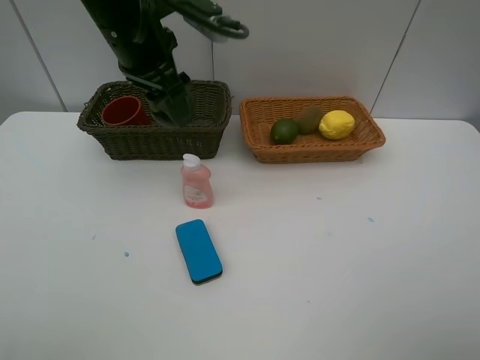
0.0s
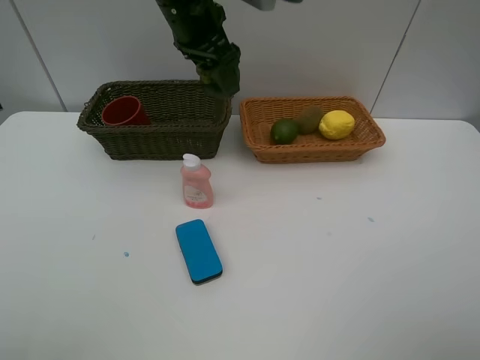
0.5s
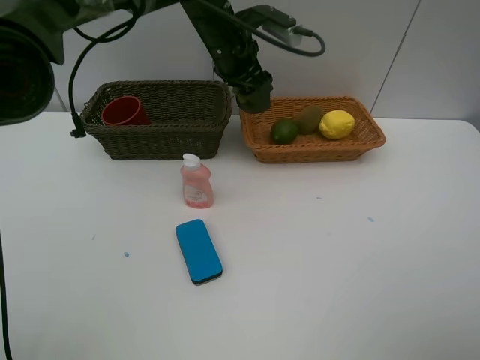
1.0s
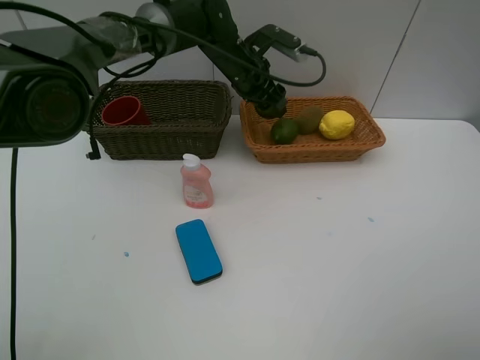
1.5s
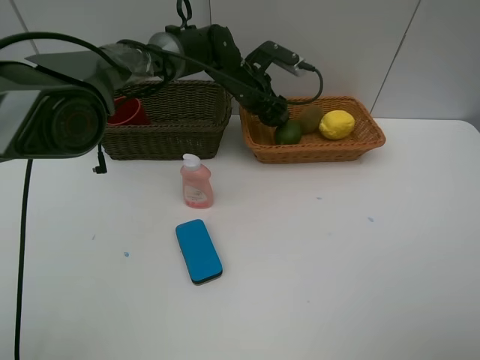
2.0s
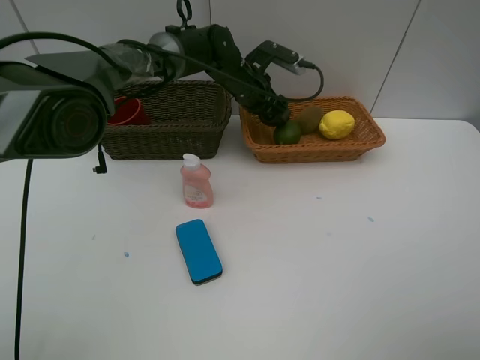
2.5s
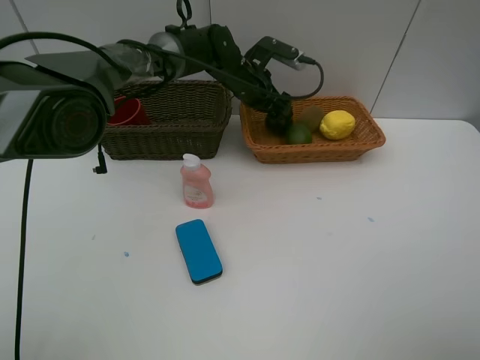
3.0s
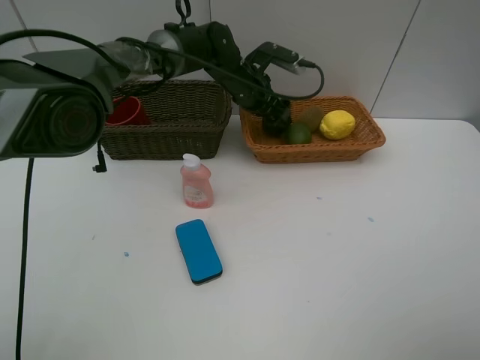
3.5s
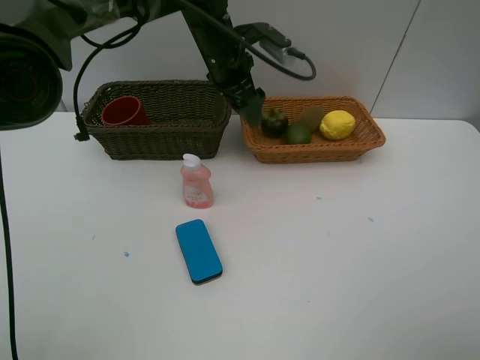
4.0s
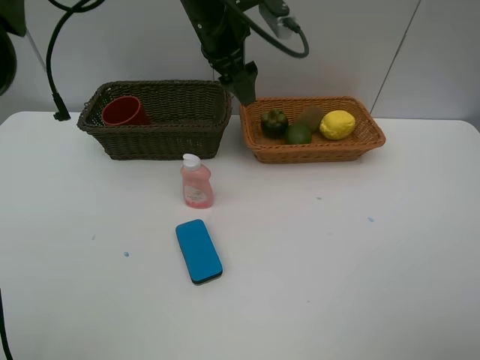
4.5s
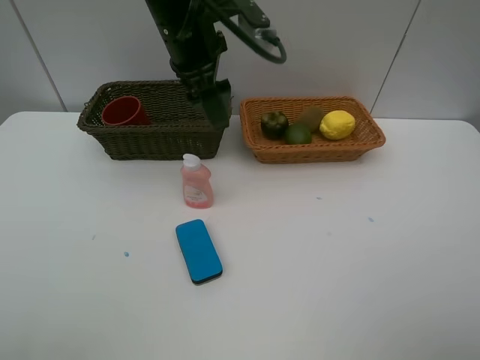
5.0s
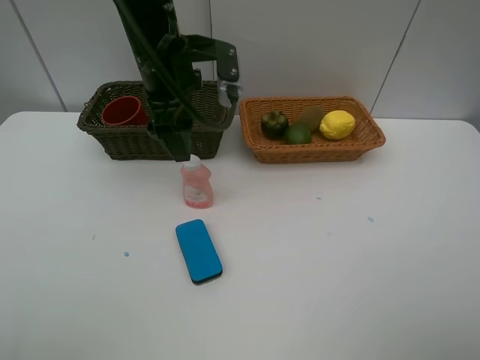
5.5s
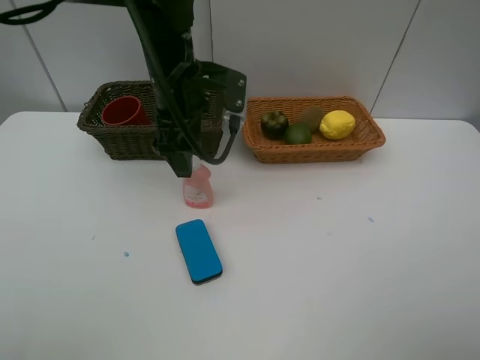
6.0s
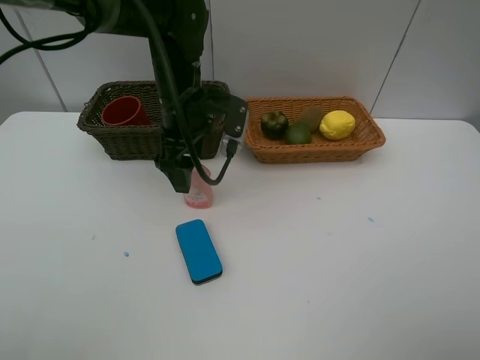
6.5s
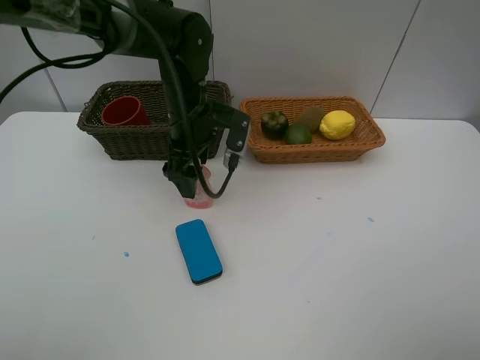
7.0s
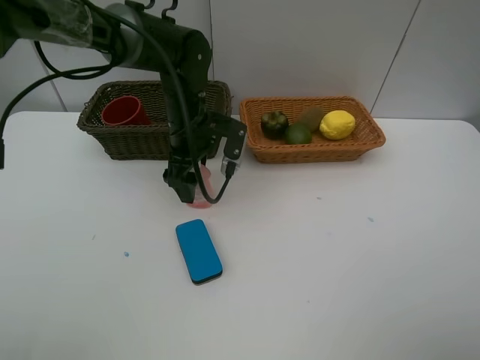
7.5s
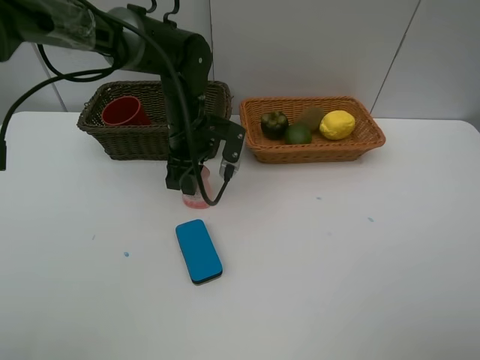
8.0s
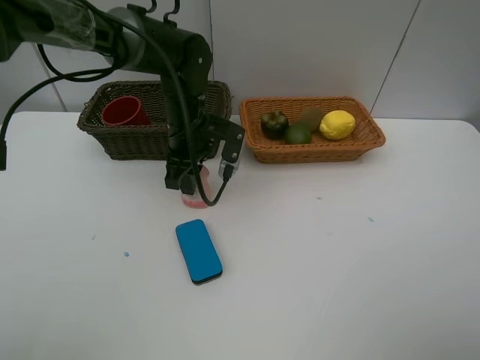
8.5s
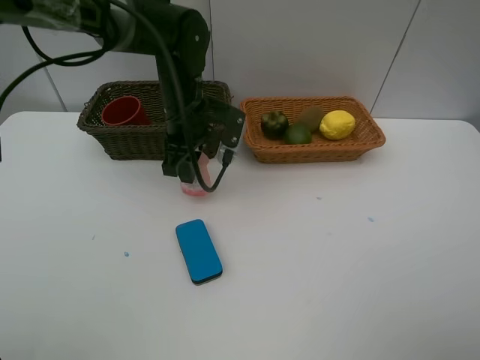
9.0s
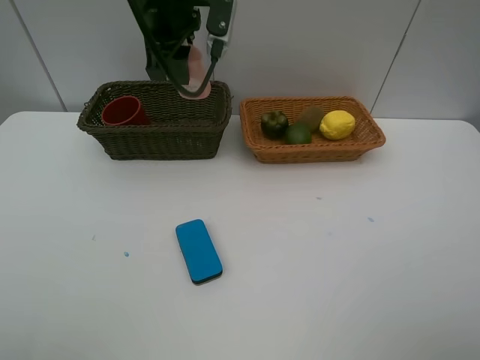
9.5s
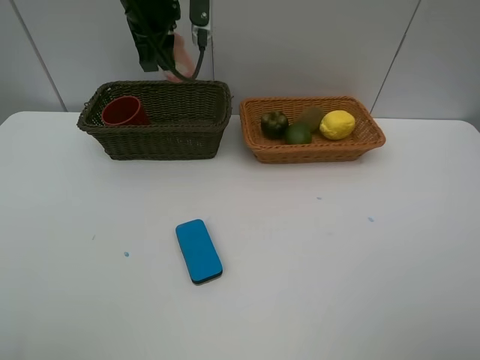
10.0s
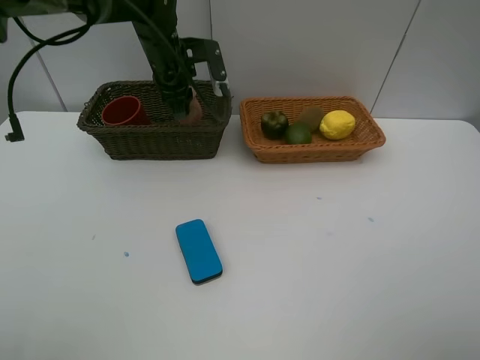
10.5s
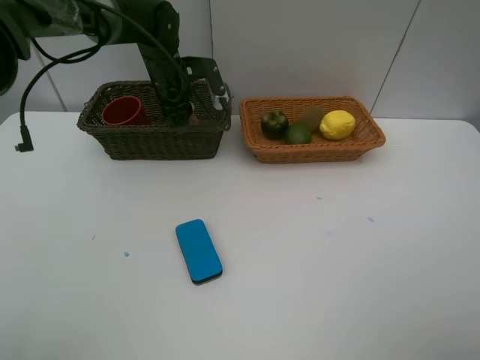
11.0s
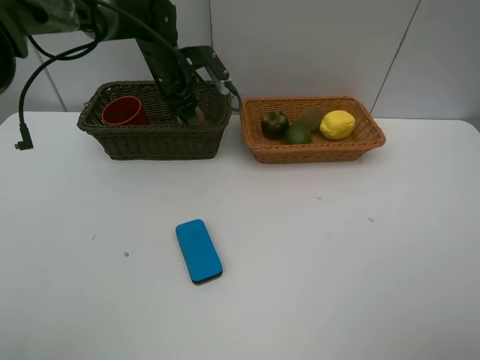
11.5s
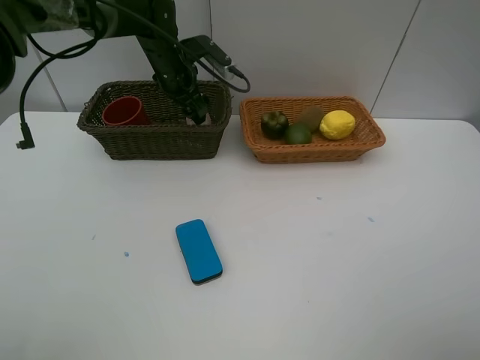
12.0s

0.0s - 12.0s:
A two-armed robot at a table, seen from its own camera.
Task of the whole recording: Place multiple objects separately in different baskets.
Step, 0.0s - 3.5s: Place the mangosteen in the light basket with left gripper.
Step, 4.0s - 9.0s: Pick up the laundry detergent with left gripper.
0.0s - 2.0s: The left gripper shifts approximately 25 cm downward, forward and to the right.
2.0s - 4.0s: The left gripper moves upward, roughly 10 cm.
4.0s - 6.0s: The left gripper heads backward, covering about 10 cm.
6.0s - 8.0s: The left gripper travels downward by some 10 cm, and closes up.
8.0s - 10.0s: The left gripper shifts roughly 15 cm upward.
10.0s - 12.0s: The left gripper goes about 15 cm downward and forward, and opens its fingers.

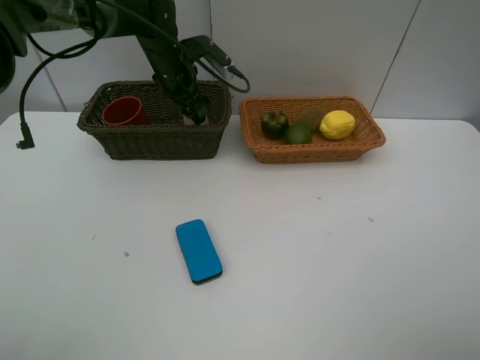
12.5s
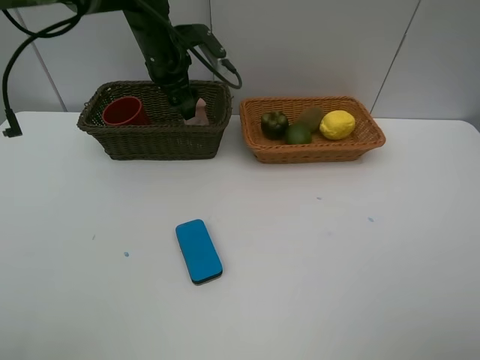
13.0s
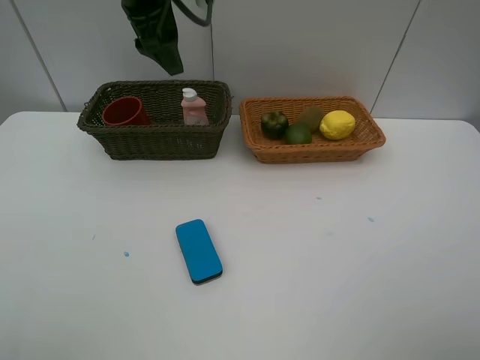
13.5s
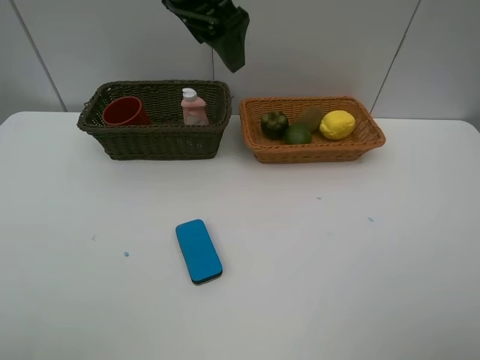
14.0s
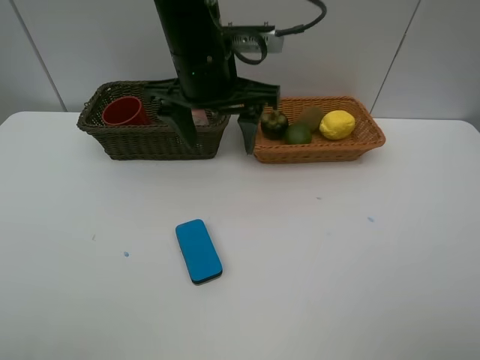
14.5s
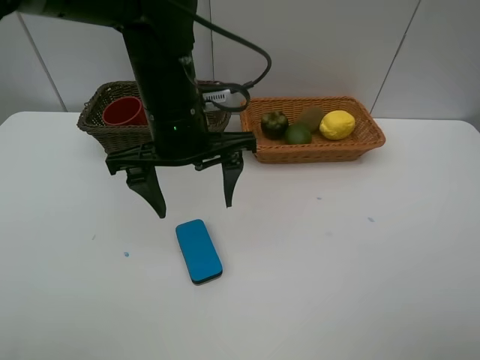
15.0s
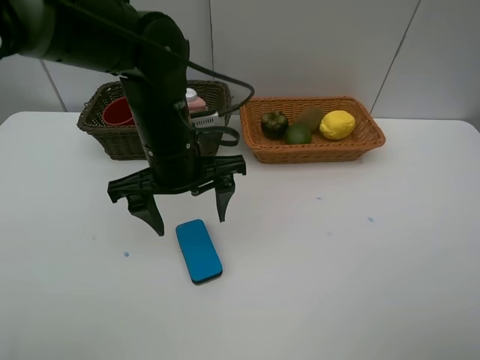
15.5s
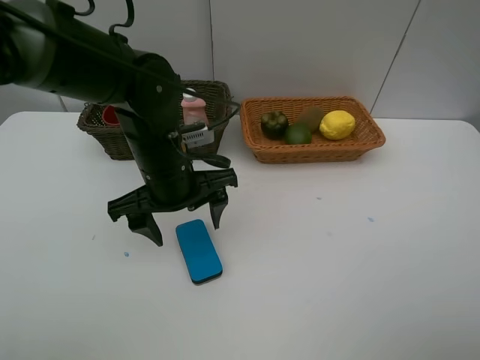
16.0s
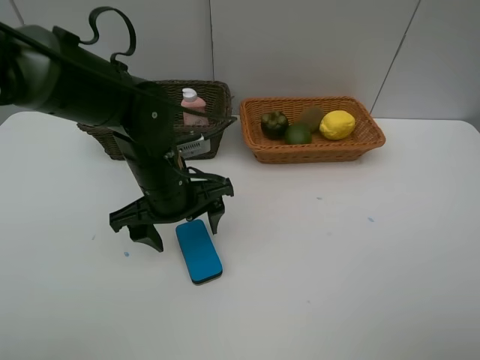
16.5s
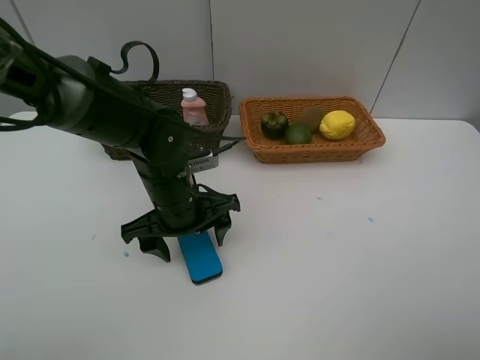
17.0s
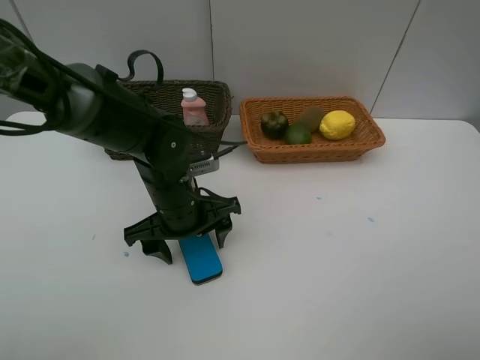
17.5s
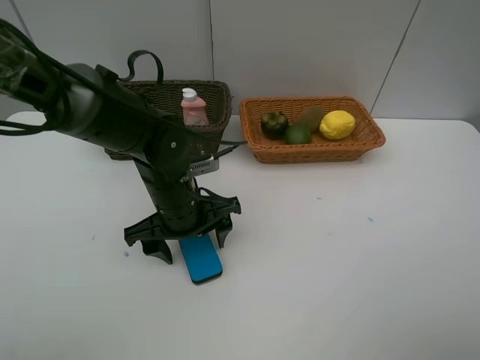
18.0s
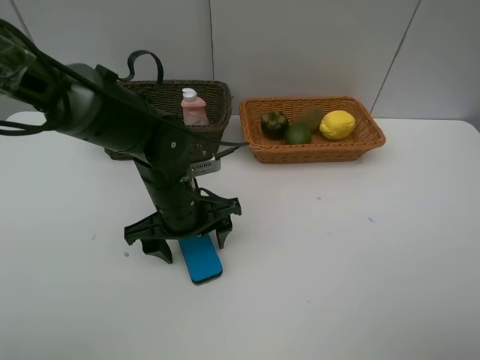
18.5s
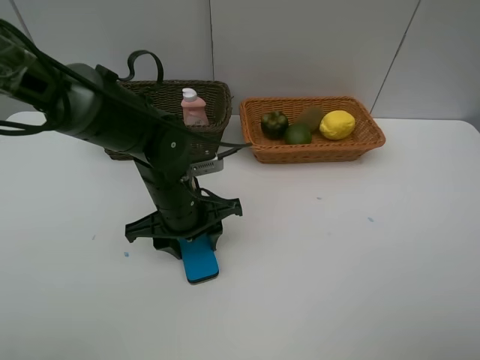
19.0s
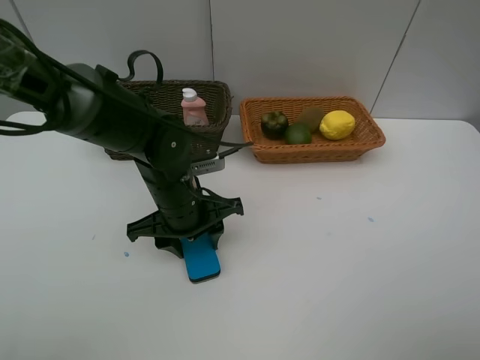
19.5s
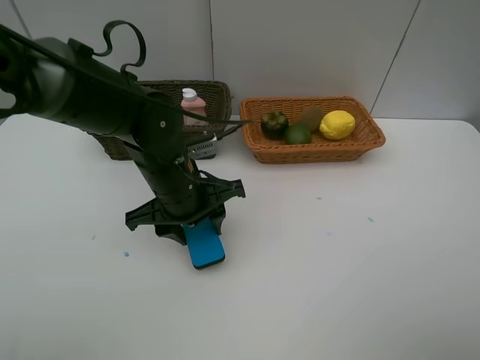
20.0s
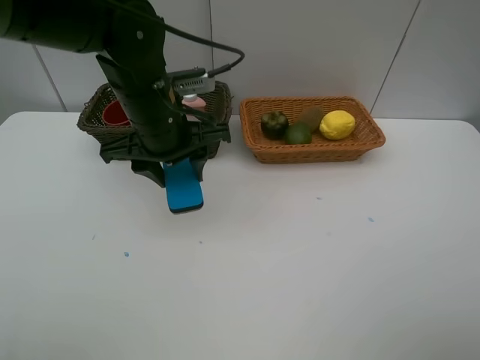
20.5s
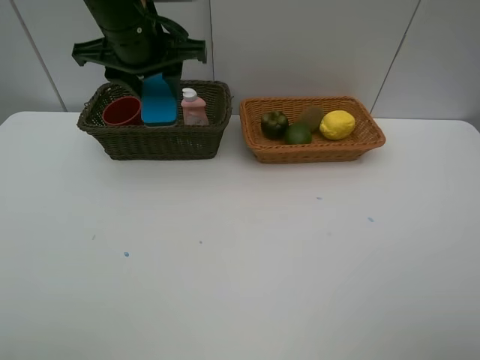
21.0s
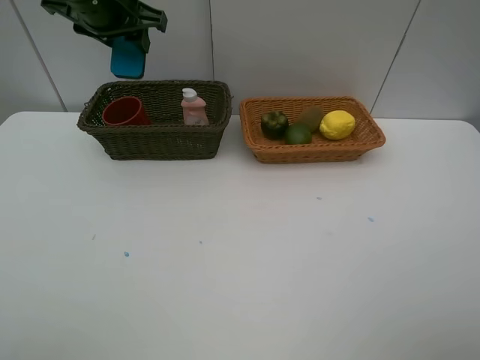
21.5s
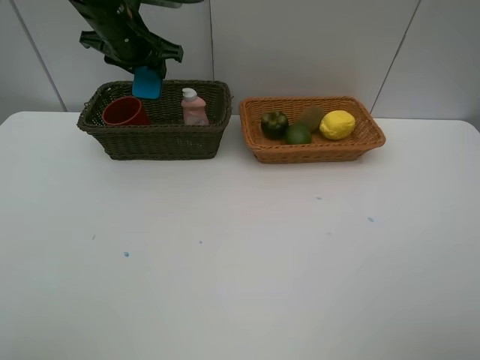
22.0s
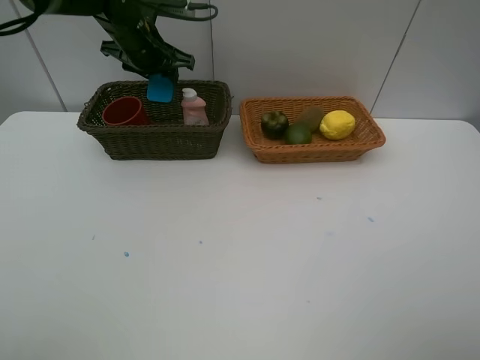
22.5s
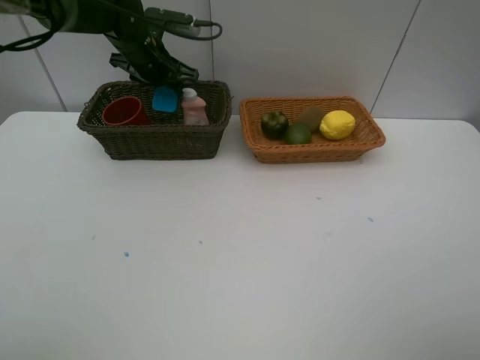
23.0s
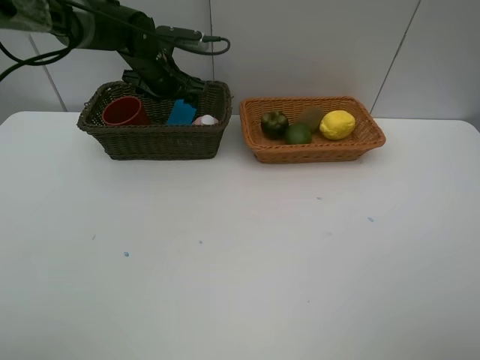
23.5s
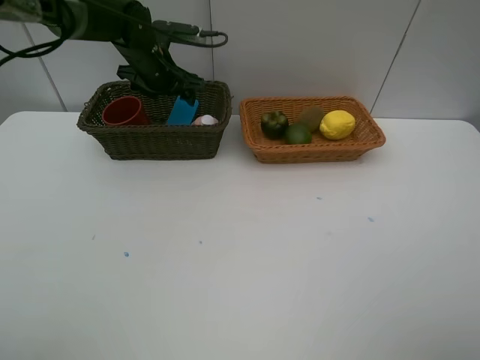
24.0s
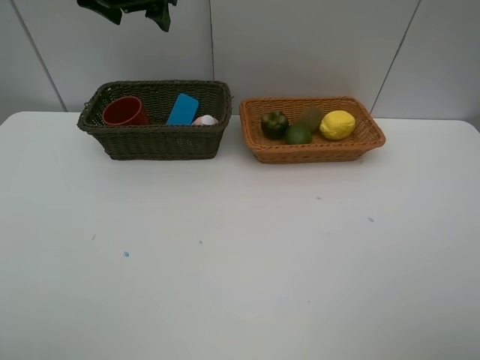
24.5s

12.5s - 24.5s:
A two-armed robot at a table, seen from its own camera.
Task of the whole recording: Place multiple objects separately in different baskets.
Step, 13.5s - 20.0s: Pick up blackboard eraser with left gripper.
Step, 20.5s - 24.0s: Place the blackboard eraser in the dark basket with left gripper.
12.5s - 14.5s: The left gripper goes roughly 20 cm backward, upward and to the right.
14.5s - 16.5s: The left gripper moves downward and backward, about 15 cm.
16.5s - 18.5s: The grippers make only small movements.
18.5s - 20.5s: The left gripper is displaced upward by roughly 10 cm.
20.5s - 22.5s: The left gripper shifts about 20 cm forward.
22.5s - 24.5s: The left gripper moves upward and backward, about 15 cm.

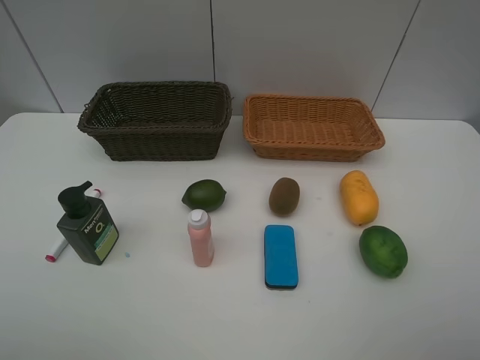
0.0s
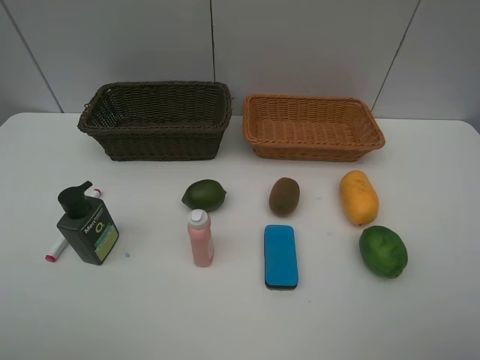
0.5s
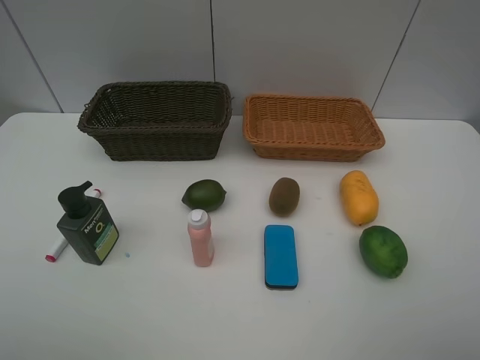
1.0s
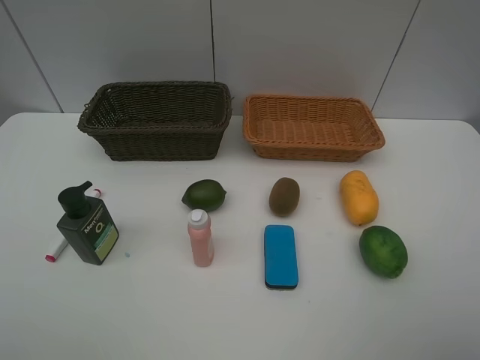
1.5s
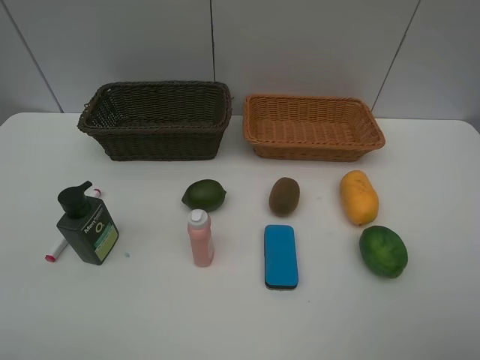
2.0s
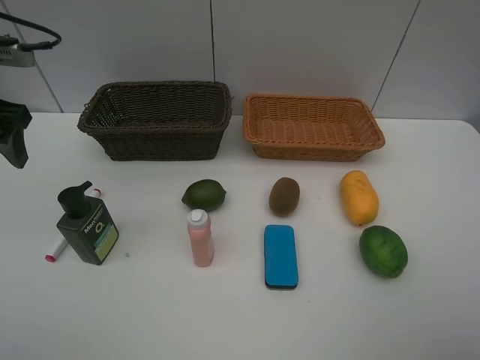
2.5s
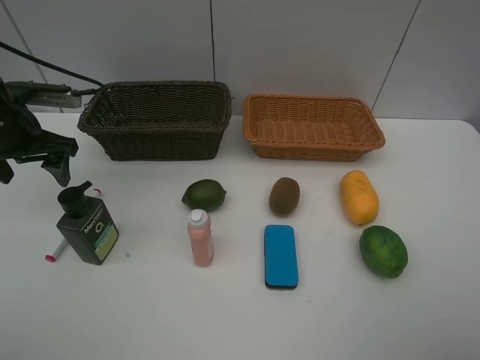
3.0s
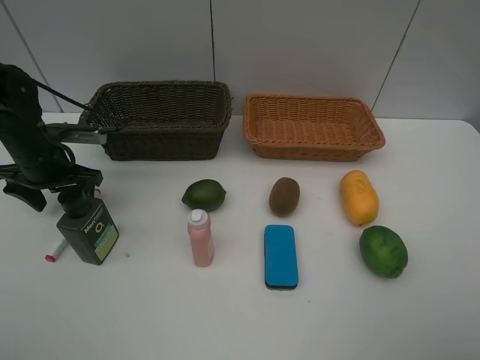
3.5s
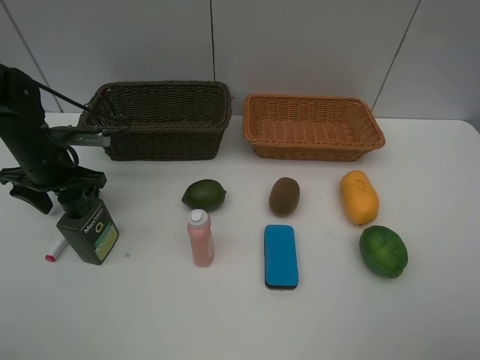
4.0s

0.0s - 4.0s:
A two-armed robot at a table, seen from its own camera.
Task of the whole recording: Place multiple objects separately in different baskets.
2.0s - 4.0s: The left gripper goes about 30 cm downward and forward.
